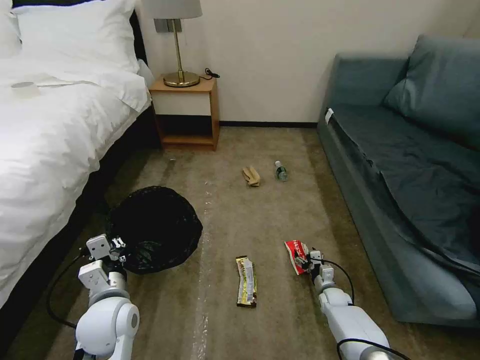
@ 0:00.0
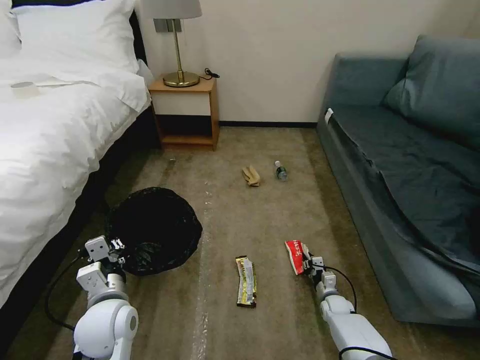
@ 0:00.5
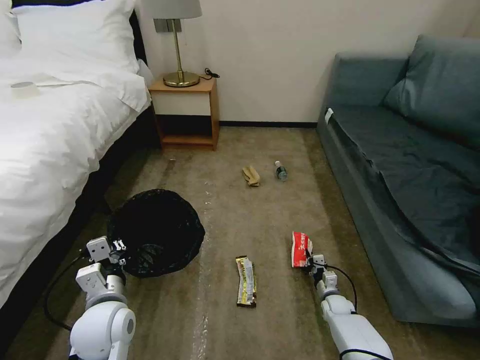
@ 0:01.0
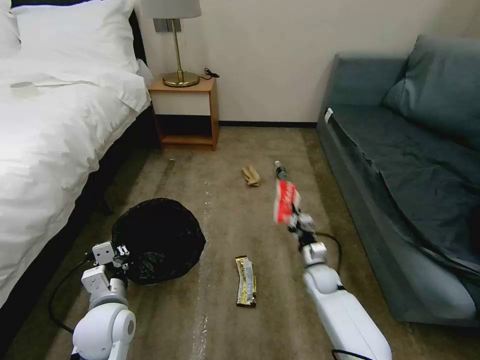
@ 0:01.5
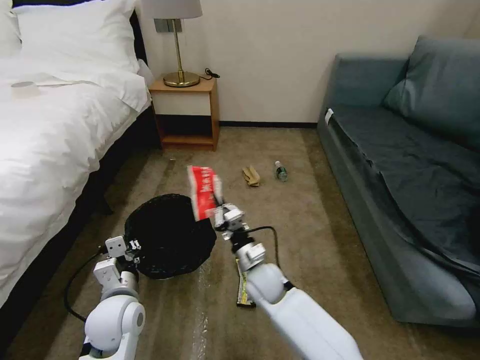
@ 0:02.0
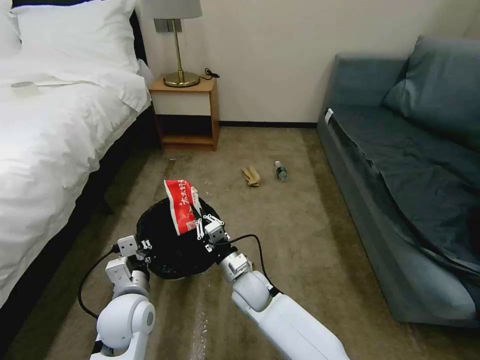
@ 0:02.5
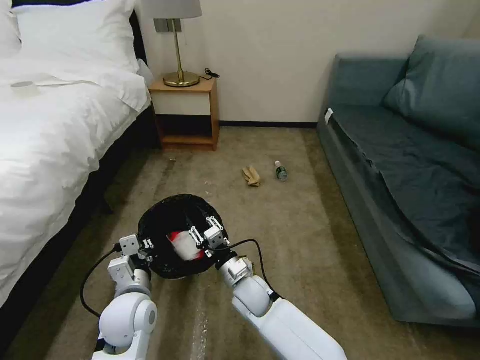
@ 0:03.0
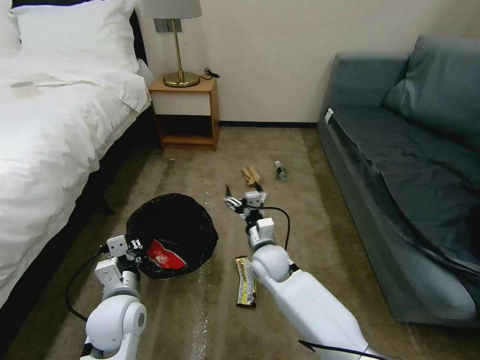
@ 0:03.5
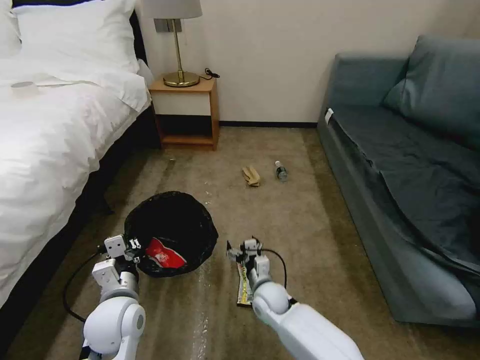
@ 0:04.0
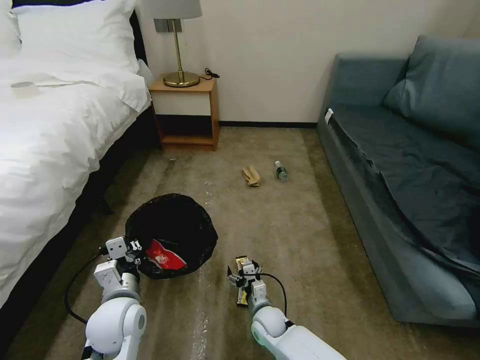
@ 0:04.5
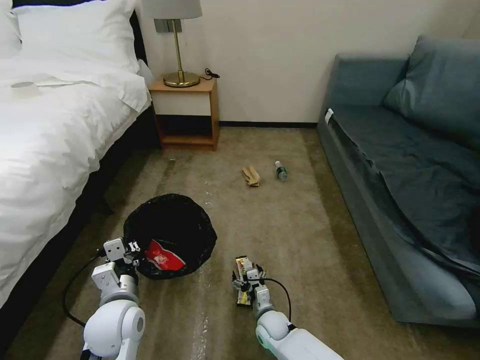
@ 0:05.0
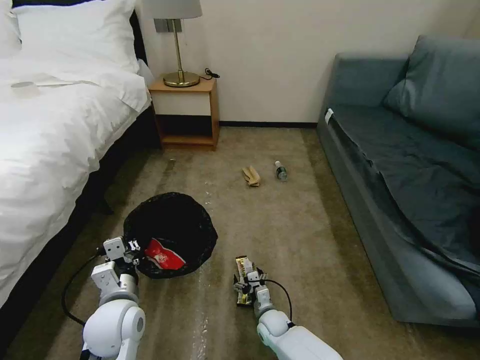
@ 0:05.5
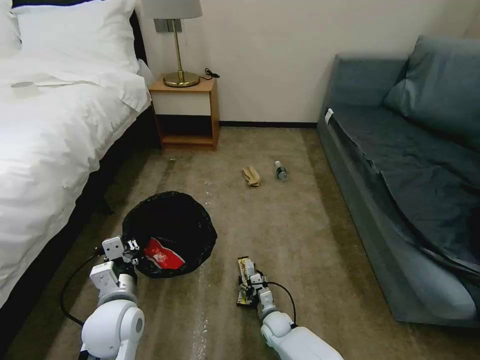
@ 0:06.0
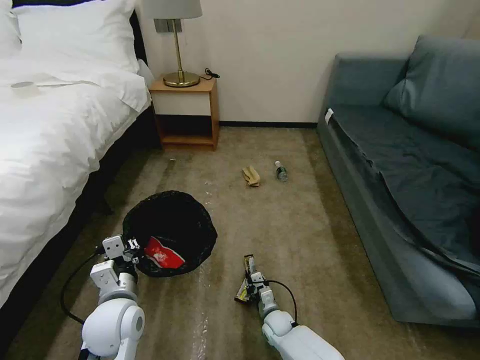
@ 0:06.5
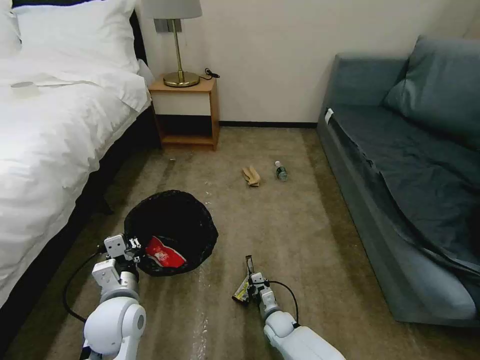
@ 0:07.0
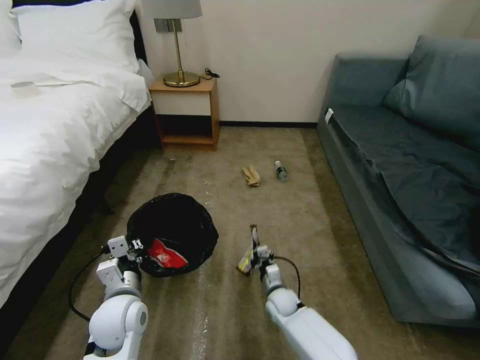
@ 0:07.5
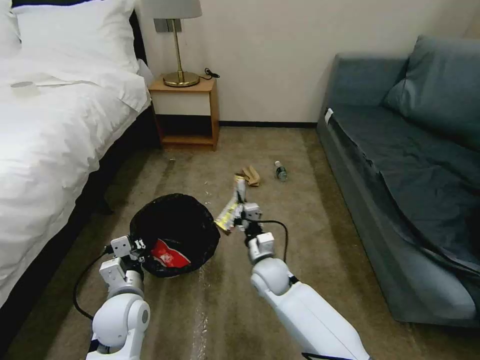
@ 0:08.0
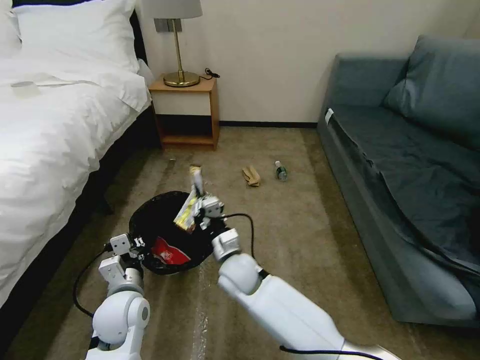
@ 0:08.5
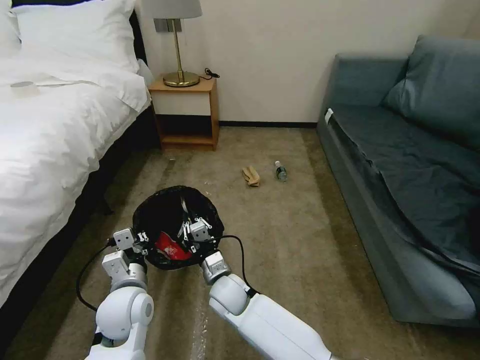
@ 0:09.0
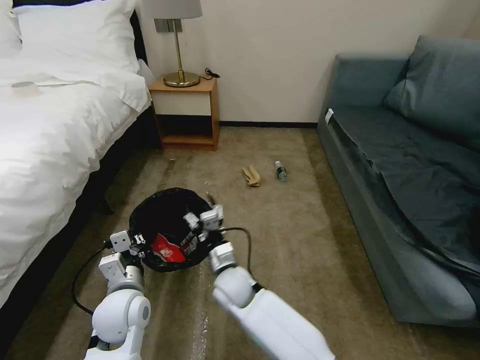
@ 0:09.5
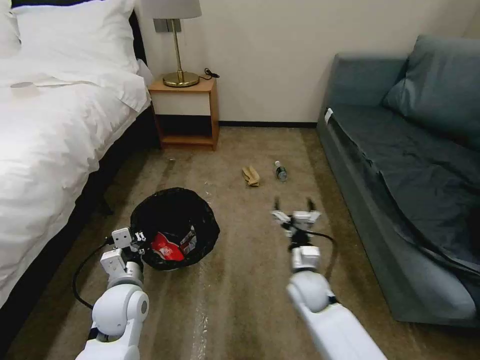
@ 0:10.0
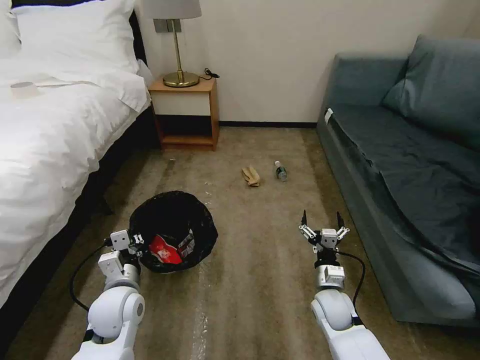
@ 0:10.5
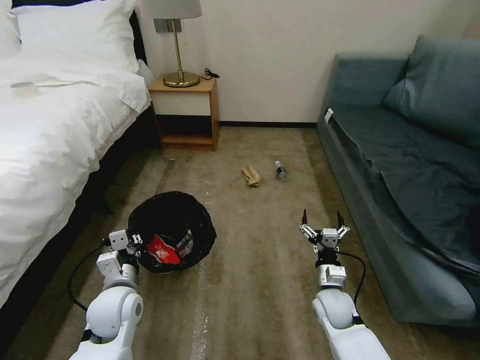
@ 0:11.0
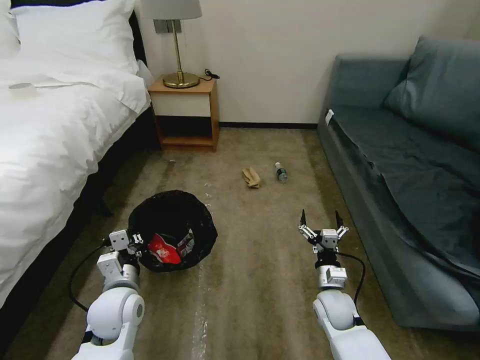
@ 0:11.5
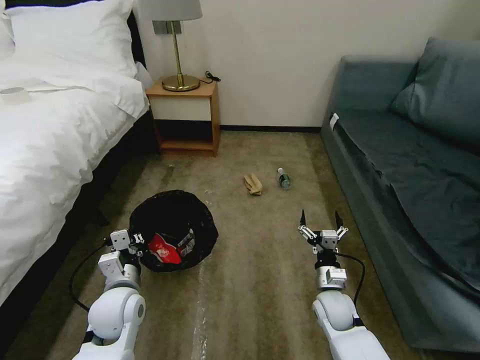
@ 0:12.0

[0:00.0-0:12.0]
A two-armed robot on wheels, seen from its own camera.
Task of the whole recording: Pick up the trash bin, then pick up the garbage on the floor and place it into the trash bin.
0:00.0 to 0:02.0: The right gripper is displaced to the left and upward by approximately 35 cm, and closes its fingers.
0:02.0 to 0:04.0: The right gripper goes roughly 10 cm downward, and opens up.
0:04.0 to 0:06.0: The right gripper moves downward, about 15 cm.
0:06.0 to 0:08.0: The right gripper heads upward, covering about 20 cm, and closes.
0:08.0 to 0:10.0: The right gripper shifts some 5 cm to the right, and opens up.
0:10.0 to 0:12.0: The right gripper shifts approximately 5 cm to the right.

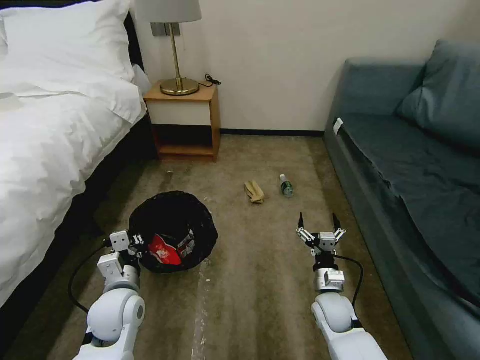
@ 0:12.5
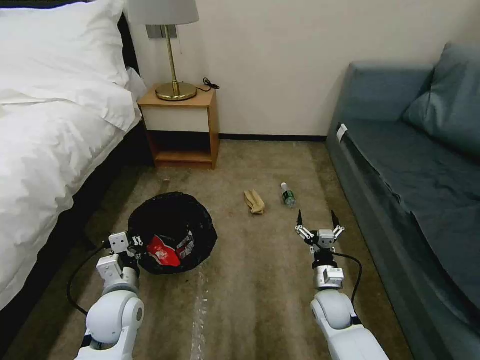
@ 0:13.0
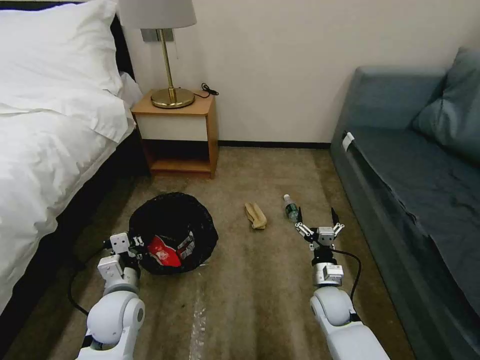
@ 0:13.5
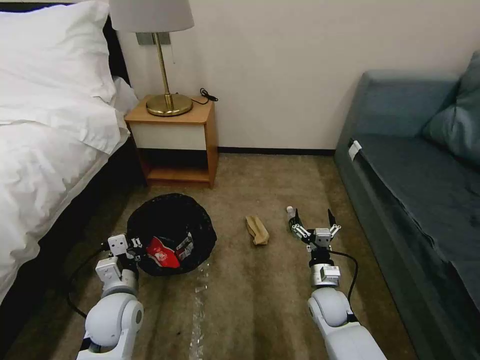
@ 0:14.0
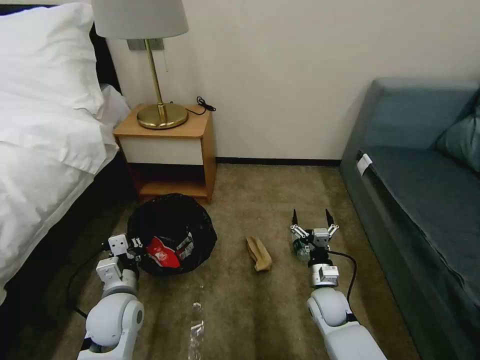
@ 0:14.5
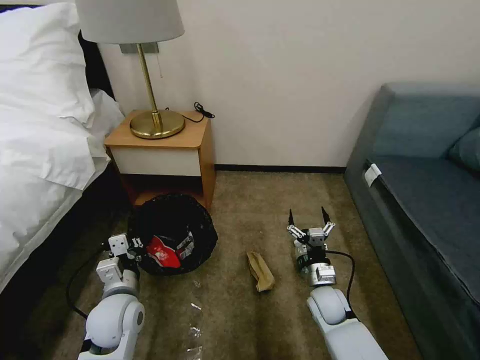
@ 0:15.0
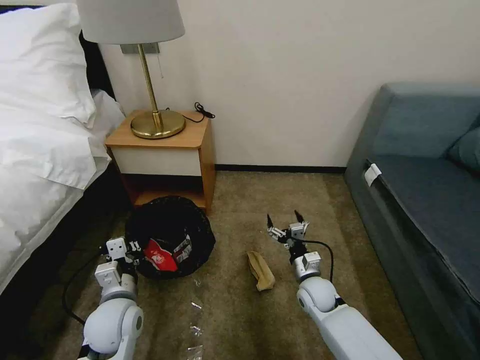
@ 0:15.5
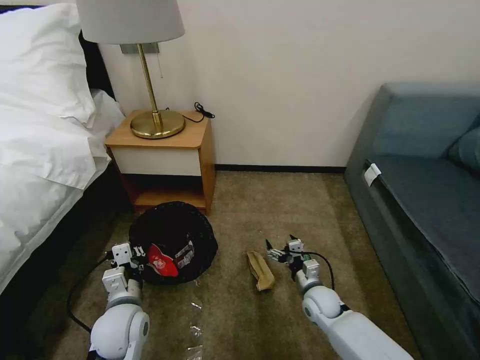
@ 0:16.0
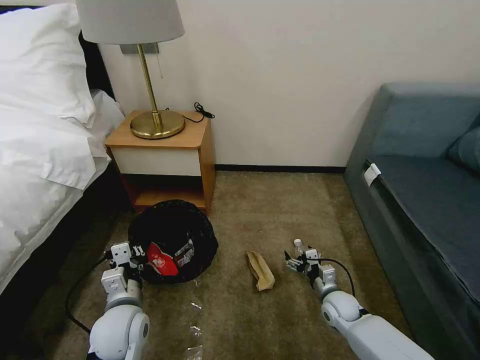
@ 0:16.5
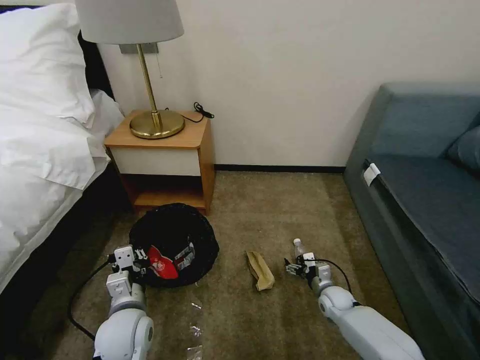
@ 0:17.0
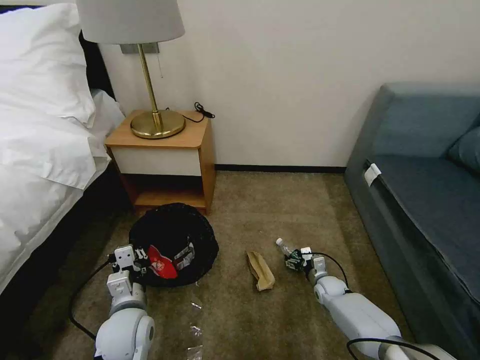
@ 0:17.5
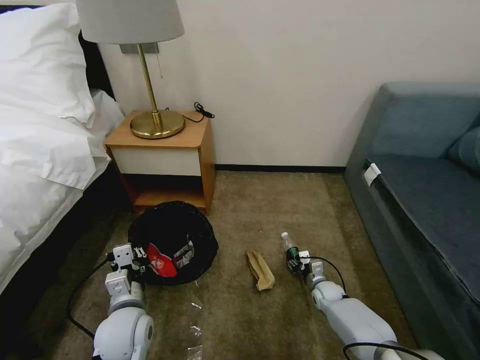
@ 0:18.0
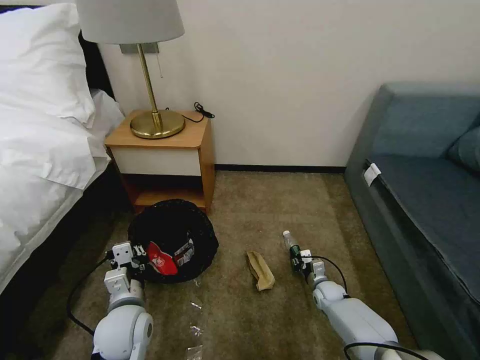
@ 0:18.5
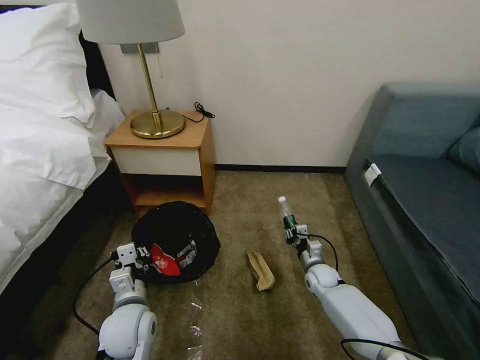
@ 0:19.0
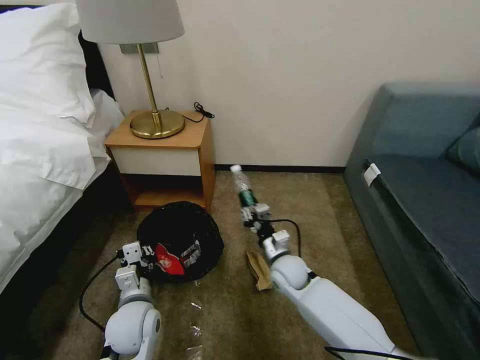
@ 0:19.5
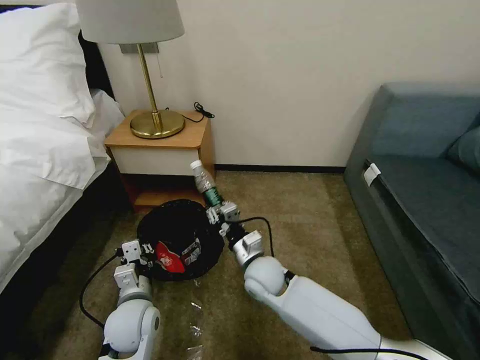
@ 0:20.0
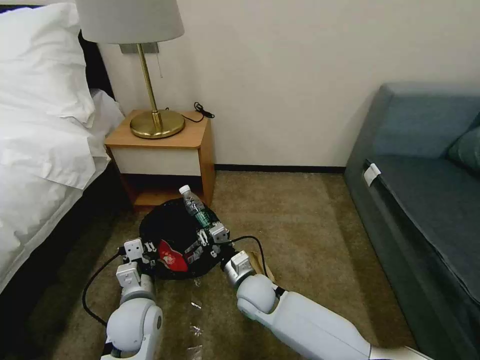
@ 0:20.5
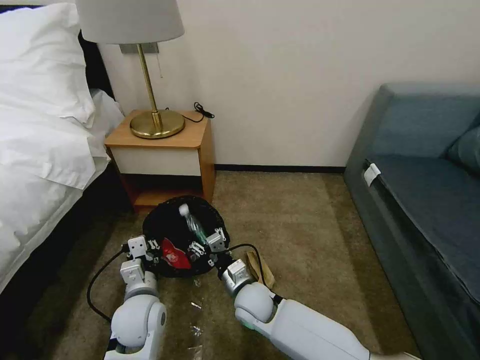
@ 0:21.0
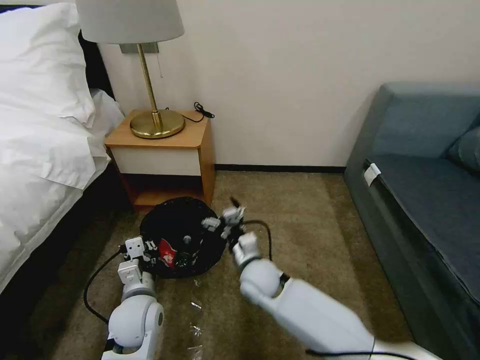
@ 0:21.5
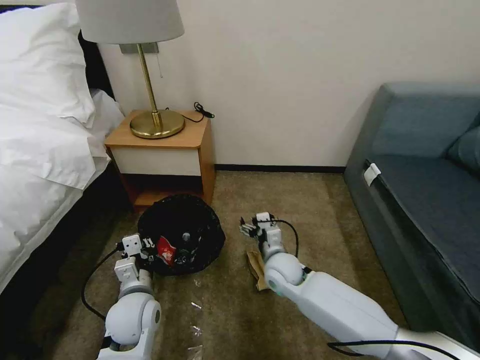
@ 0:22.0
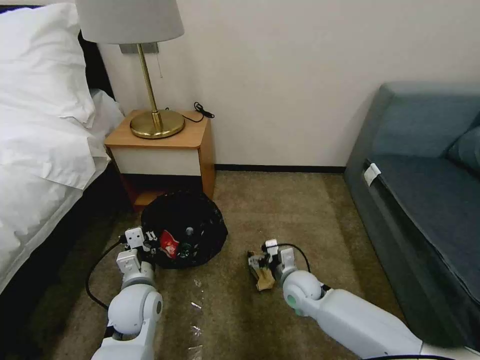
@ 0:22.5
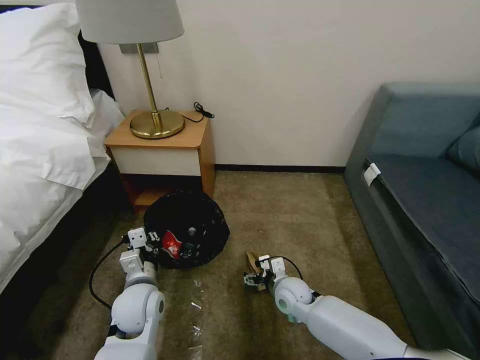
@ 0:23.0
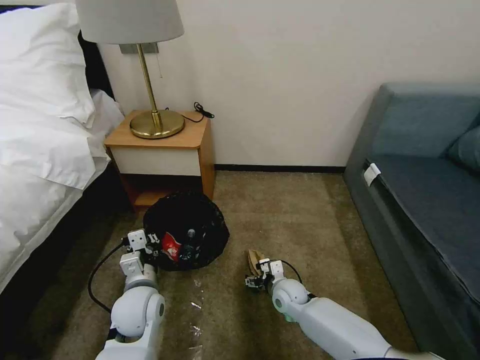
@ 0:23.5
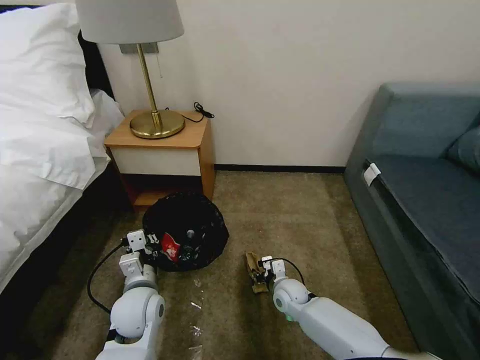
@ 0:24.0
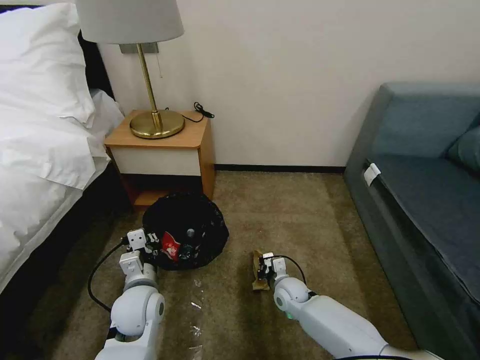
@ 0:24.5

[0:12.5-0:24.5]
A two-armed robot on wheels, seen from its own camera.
Task of the whole recording: Pick up the trash bin, then pick up the garbage on the floor and place it into the trash bin.
0:14.5 to 0:16.5: The right gripper heads to the right and downward, covering some 10 cm.
0:16.5 to 0:18.5: The right gripper goes approximately 10 cm downward and forward, and closes its fingers.
0:18.5 to 0:20.5: The right gripper is displaced to the left and upward by about 30 cm.
0:20.5 to 0:22.5: The right gripper heads to the right, covering approximately 15 cm, and opens up.
0:22.5 to 0:24.5: The right gripper shifts about 10 cm downward, and closes.

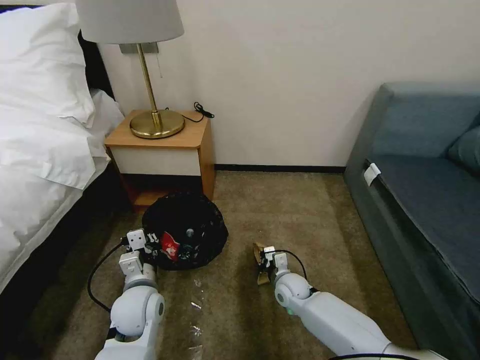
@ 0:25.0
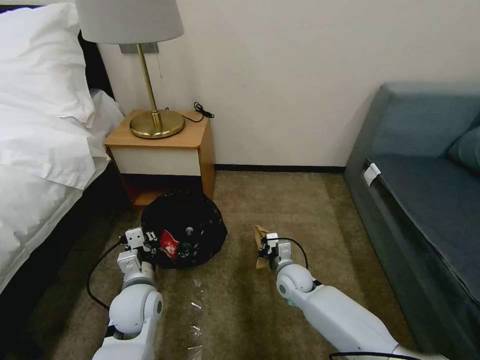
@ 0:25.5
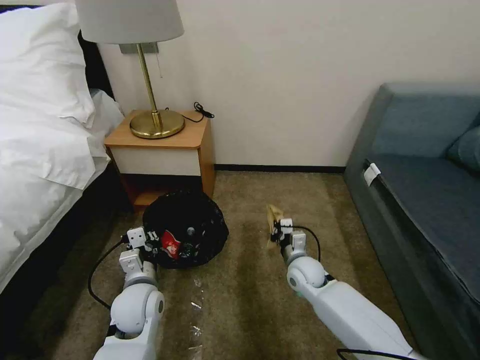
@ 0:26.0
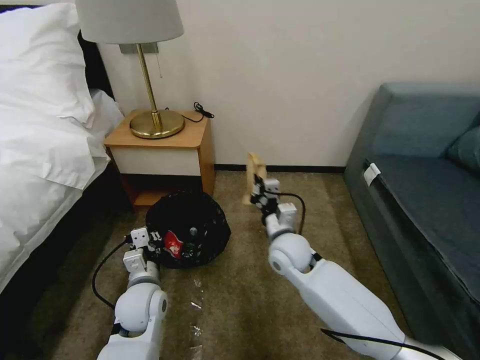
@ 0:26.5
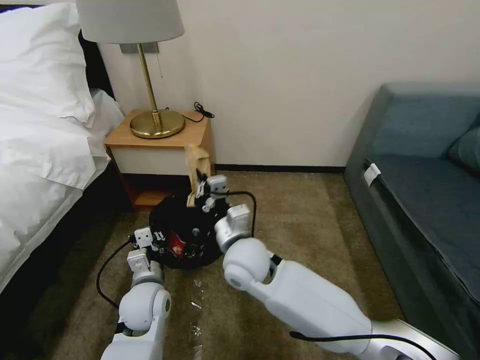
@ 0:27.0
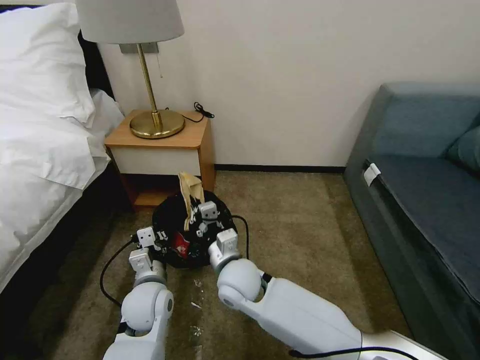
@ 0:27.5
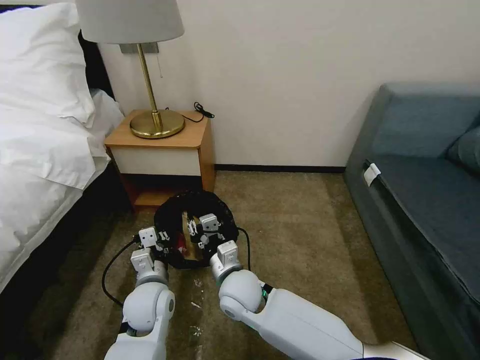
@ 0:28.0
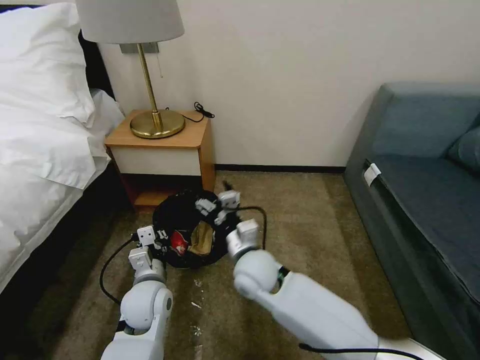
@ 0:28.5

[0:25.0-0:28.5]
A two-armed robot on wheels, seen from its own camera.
Task of the whole recording: Pick up the trash bin, then pick up the garbage on the floor and place it into the trash bin.
0:25.0 to 0:27.0: The right gripper travels upward and to the left by roughly 30 cm.
0:27.0 to 0:28.5: The right gripper goes some 5 cm downward, and opens up.
